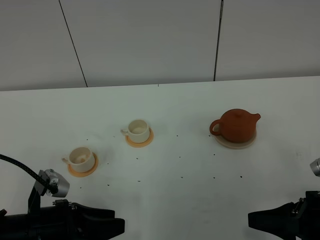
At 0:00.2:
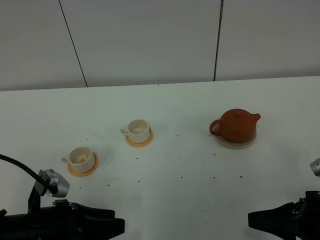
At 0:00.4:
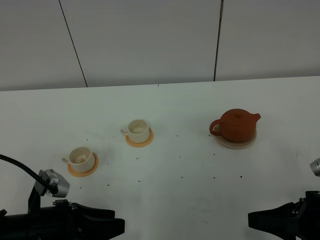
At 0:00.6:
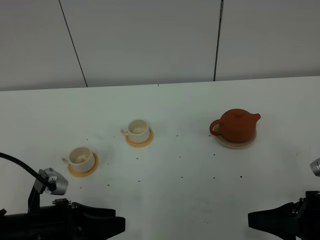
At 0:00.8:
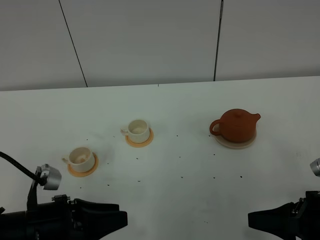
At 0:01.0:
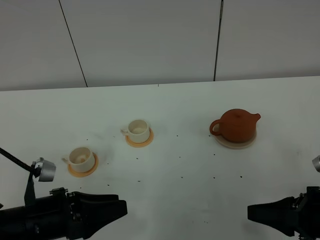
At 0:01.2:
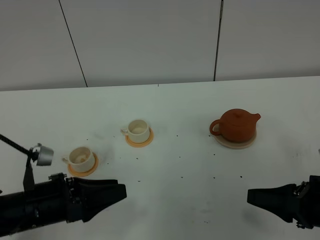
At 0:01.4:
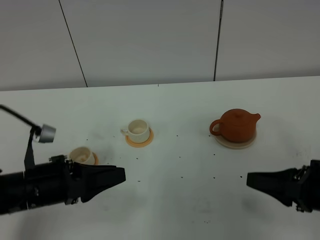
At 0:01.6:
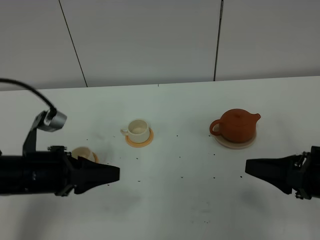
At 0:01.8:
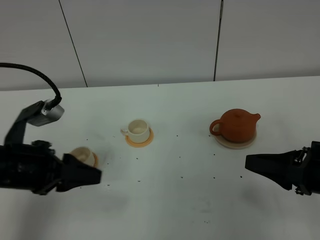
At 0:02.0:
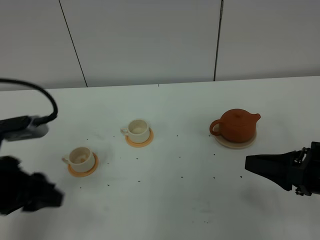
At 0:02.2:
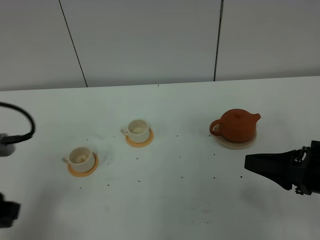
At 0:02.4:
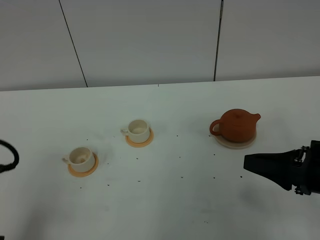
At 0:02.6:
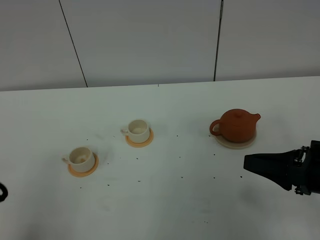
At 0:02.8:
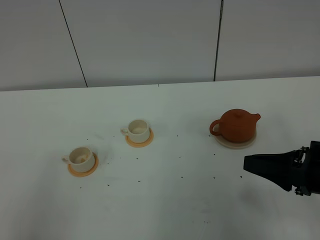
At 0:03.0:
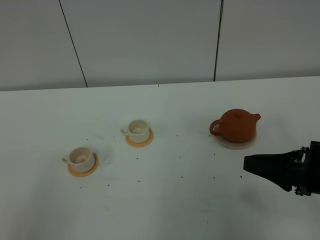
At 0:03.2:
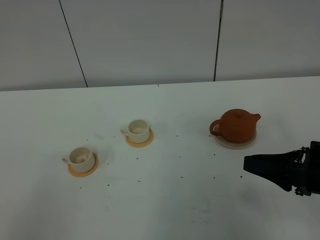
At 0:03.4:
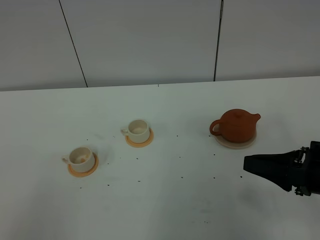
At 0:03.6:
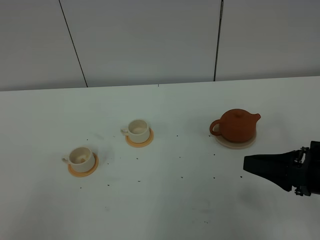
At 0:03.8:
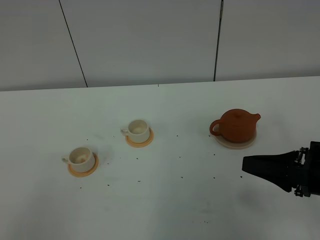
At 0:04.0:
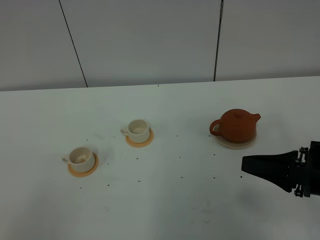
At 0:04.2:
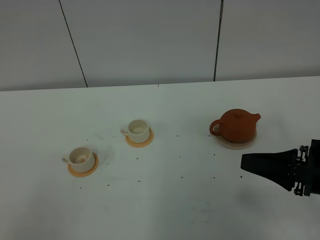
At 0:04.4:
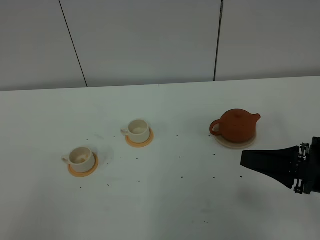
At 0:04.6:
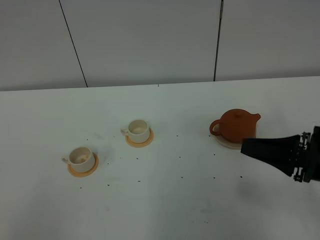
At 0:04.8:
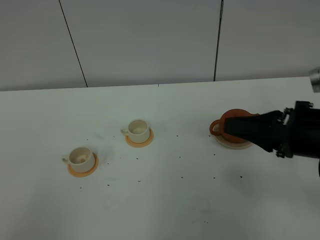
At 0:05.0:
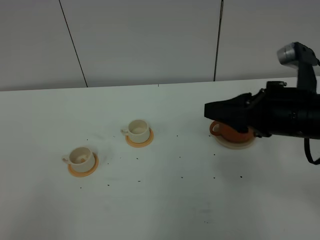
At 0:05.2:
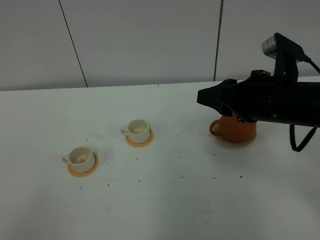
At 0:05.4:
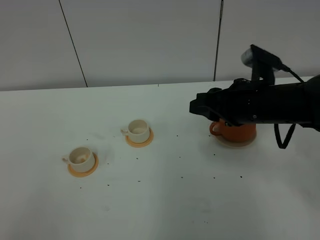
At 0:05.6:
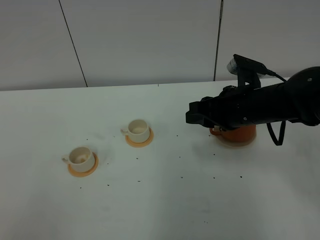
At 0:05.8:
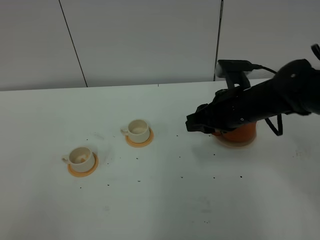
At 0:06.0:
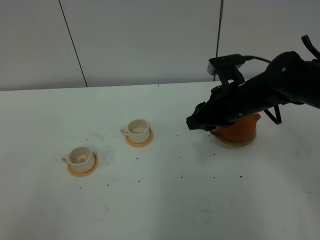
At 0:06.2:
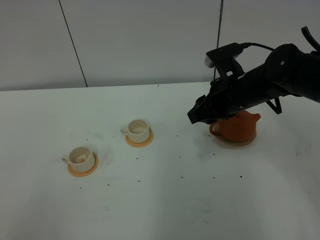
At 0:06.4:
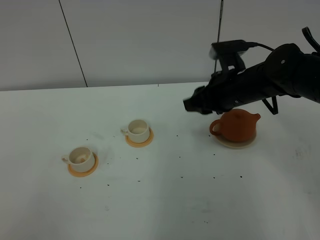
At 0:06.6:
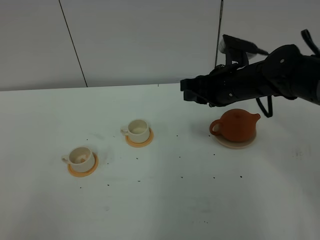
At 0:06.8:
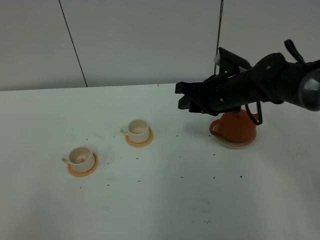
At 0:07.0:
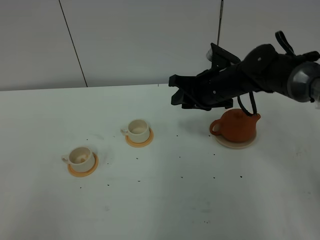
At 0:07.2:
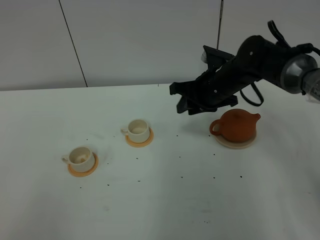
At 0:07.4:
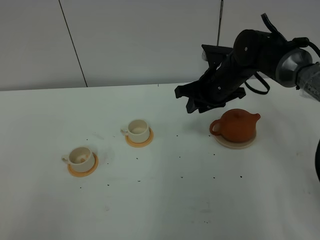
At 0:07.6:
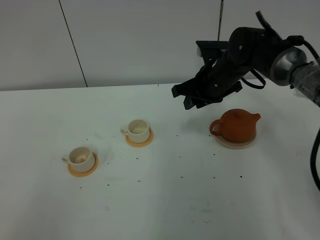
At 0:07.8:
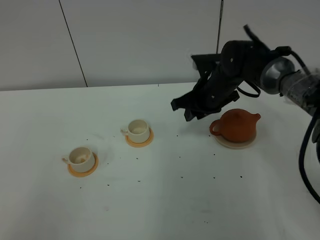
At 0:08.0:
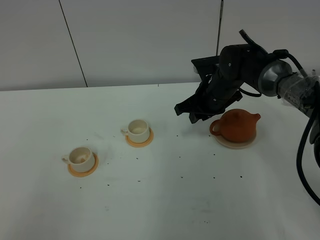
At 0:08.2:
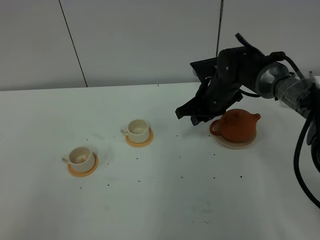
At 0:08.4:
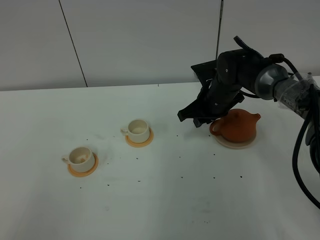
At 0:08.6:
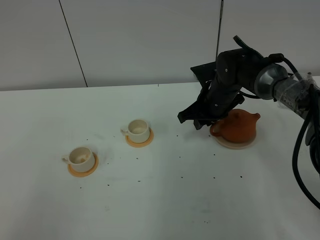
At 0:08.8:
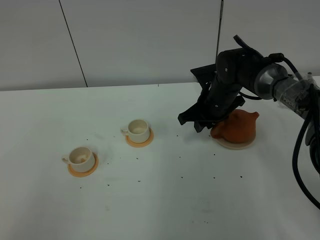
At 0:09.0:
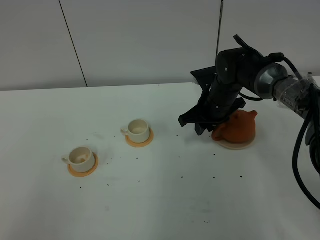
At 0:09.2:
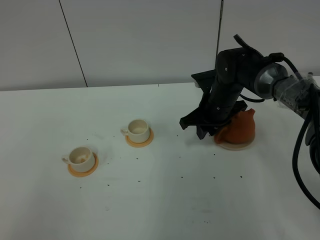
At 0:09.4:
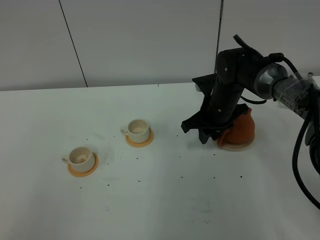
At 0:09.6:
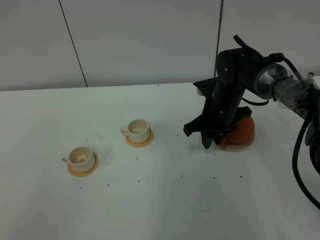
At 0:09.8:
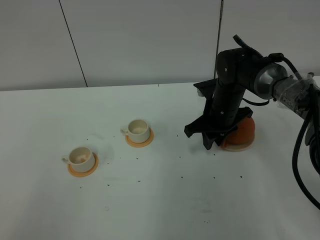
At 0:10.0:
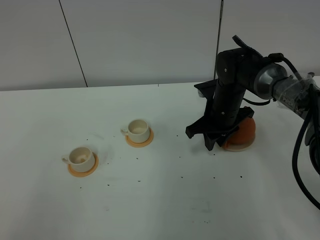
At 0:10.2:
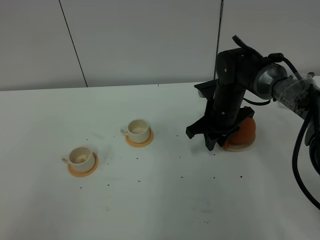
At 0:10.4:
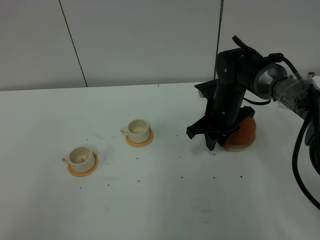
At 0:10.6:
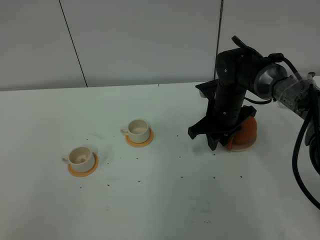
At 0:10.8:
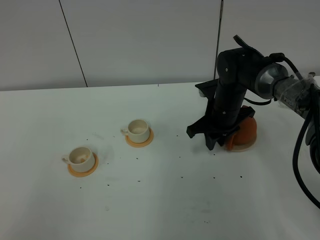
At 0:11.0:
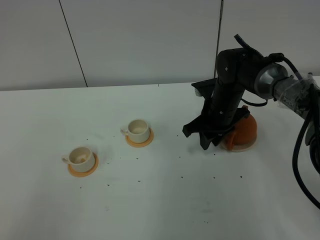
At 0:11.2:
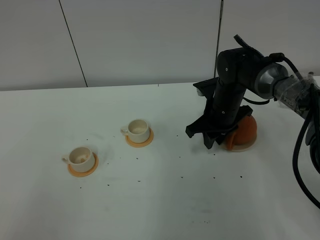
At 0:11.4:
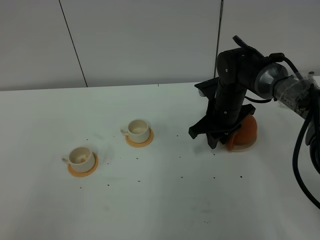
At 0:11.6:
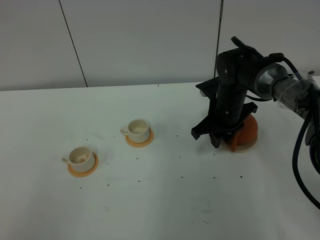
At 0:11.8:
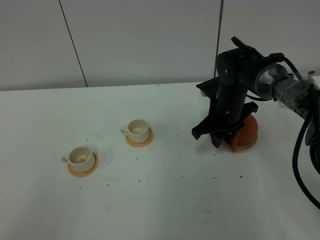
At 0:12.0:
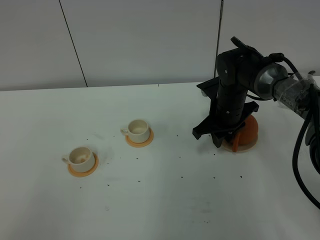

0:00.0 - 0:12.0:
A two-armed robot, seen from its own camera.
Task of the whole recording: grasp the brown teapot and pour the tea into the two white teacups one by one, put the brown teapot back in its original place.
0:00.0 - 0:01.6: The left gripper moves forward and upward, roughly 10 cm, while the right gripper changes place by roughly 5 cm.
0:01.6 - 0:03.0: The left gripper heads backward, covering approximately 20 cm.
0:03.0 - 0:04.4: The grippers stay close to where they were, moving slightly.
0:04.4 - 0:06.0: The right gripper travels forward and to the left by about 20 cm.
0:06.0 - 0:07.6: The right gripper shifts roughly 10 cm forward.
0:07.6 - 0:09.0: There are only small adjustments of the grippers.
0:09.0 - 0:12.0: The grippers move only a little.

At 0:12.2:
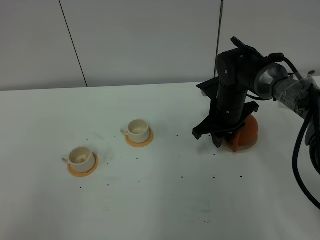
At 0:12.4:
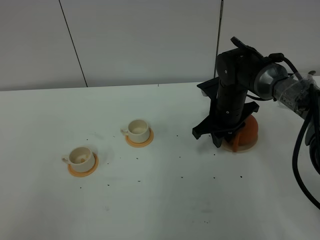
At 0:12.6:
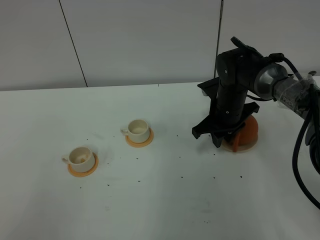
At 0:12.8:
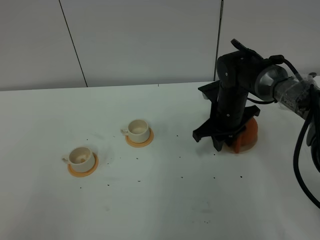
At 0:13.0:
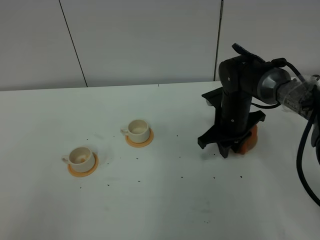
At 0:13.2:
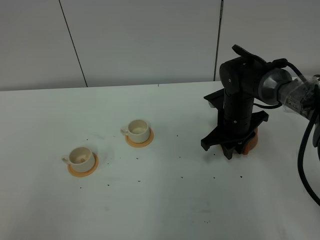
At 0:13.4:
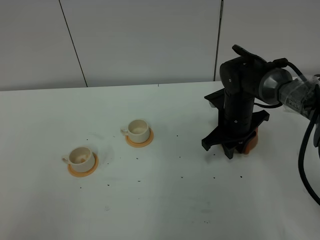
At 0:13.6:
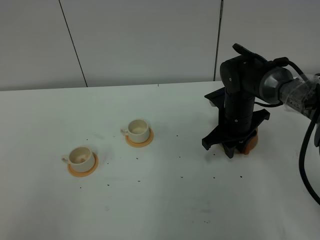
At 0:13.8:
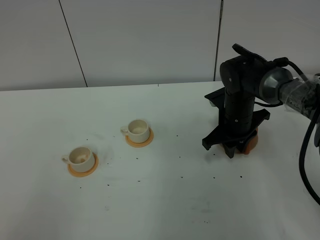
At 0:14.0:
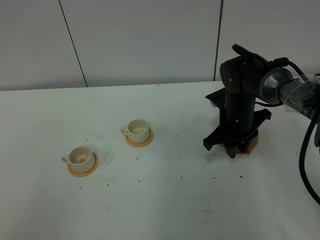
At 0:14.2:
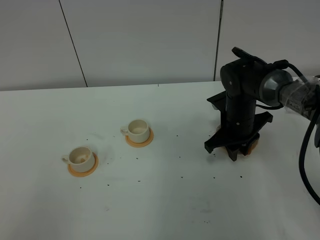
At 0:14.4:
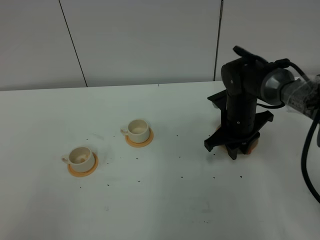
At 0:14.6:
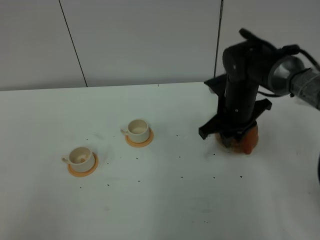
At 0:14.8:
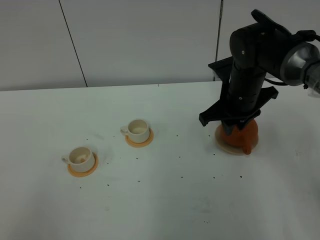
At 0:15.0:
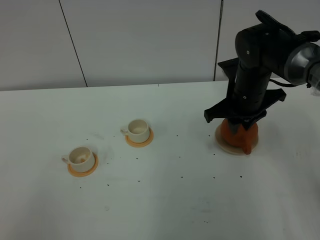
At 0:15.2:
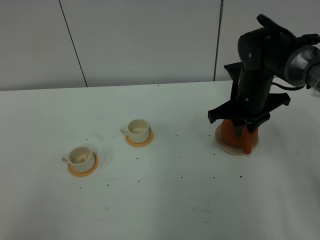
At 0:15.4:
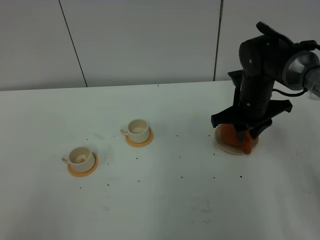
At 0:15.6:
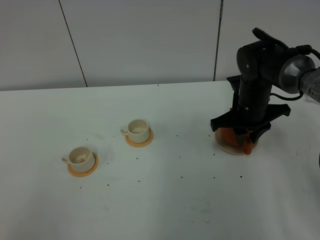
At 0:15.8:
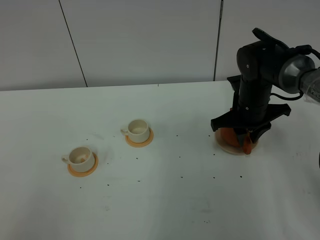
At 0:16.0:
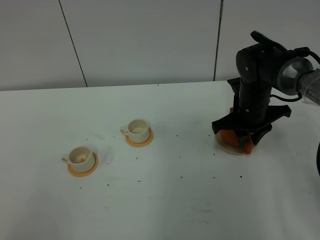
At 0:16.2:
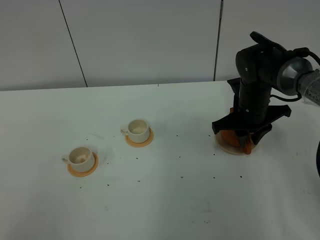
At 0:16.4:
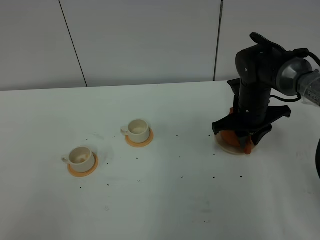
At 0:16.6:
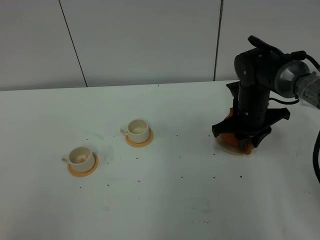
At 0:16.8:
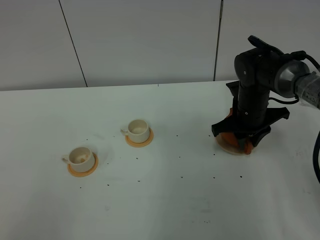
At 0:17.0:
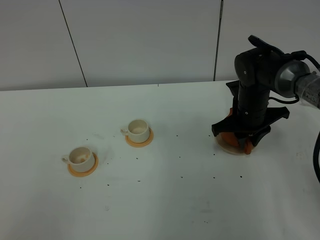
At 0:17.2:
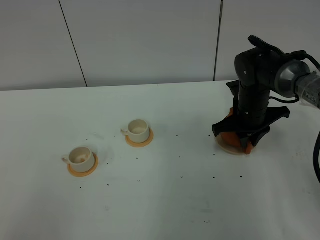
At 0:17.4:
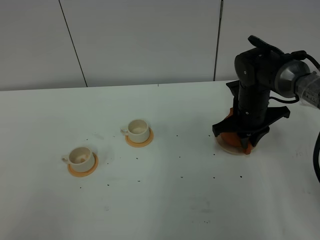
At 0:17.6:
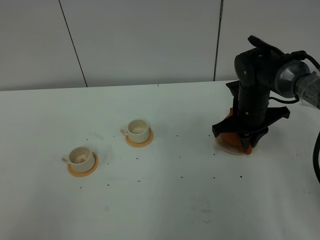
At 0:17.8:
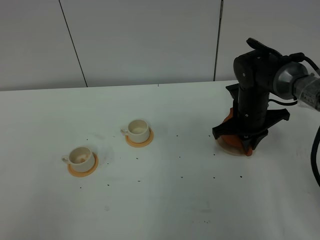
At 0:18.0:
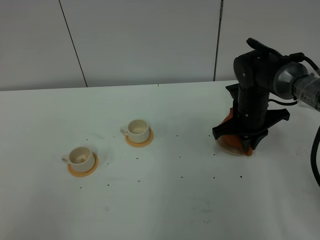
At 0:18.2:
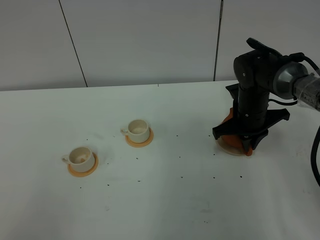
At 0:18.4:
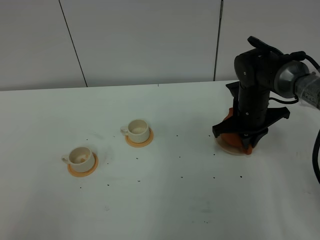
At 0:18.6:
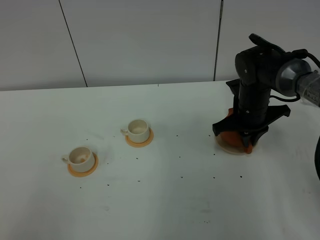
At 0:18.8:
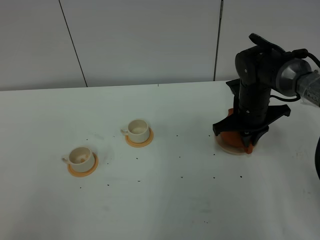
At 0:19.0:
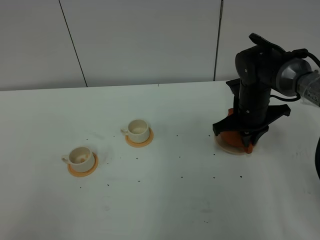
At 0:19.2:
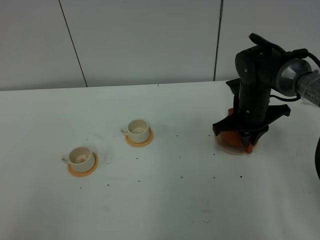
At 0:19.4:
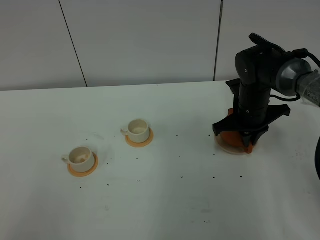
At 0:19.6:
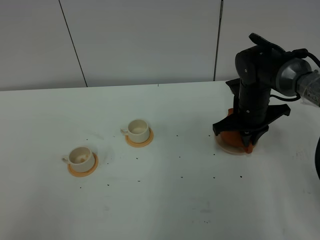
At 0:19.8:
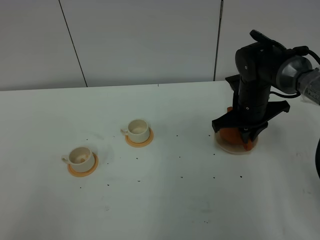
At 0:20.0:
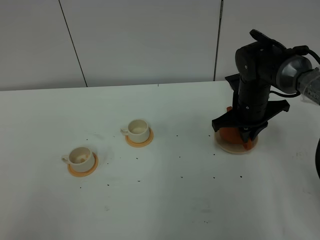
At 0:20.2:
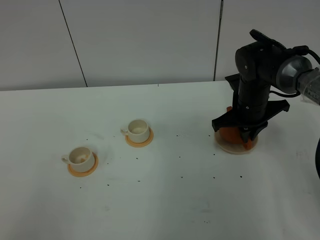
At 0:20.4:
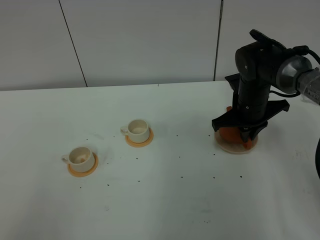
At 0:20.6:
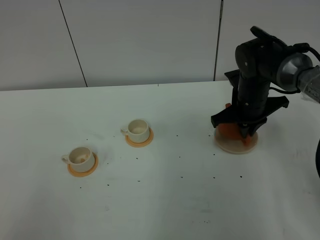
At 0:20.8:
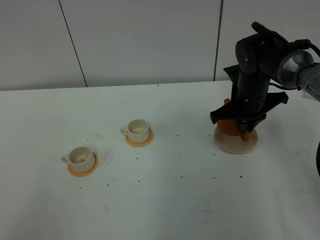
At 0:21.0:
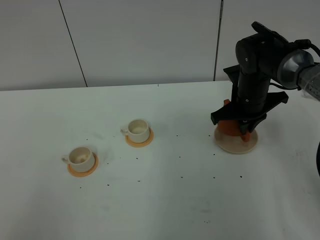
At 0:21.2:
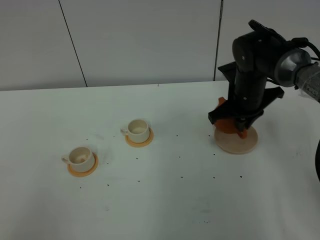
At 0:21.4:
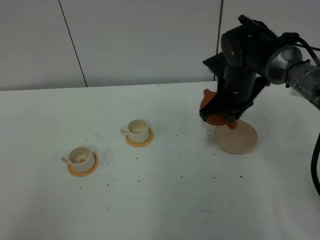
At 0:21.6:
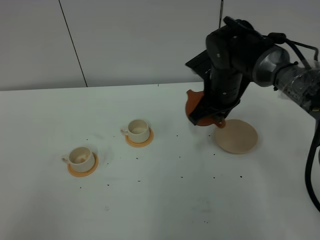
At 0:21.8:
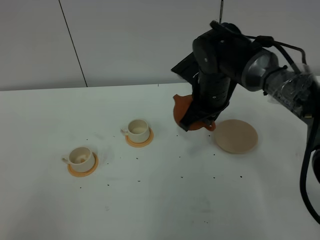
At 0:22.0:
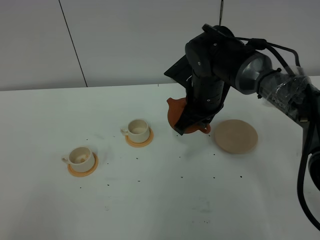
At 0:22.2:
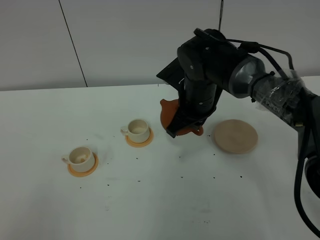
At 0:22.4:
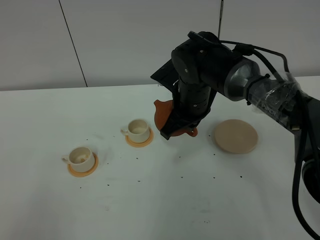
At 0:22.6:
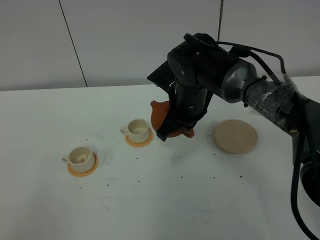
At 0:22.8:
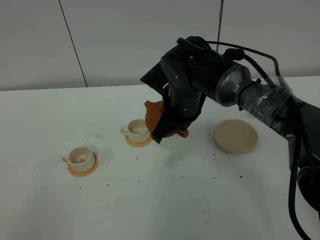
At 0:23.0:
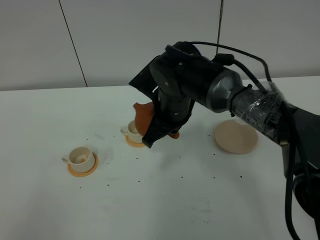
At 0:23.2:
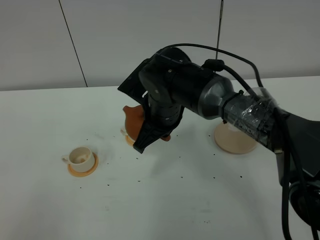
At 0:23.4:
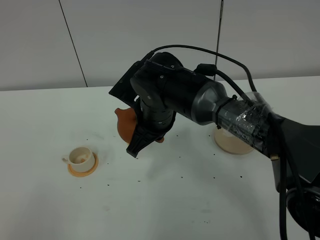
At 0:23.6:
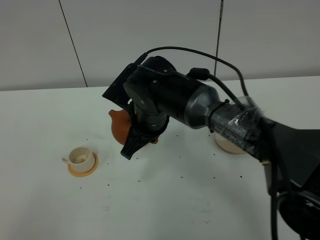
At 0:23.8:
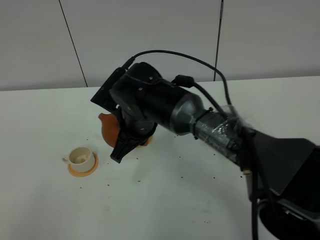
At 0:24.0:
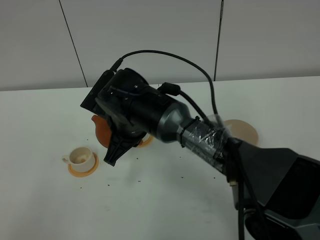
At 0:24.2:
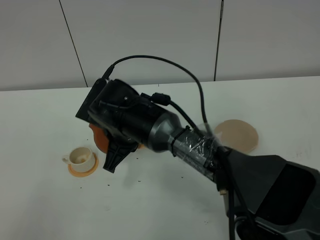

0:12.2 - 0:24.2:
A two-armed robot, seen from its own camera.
Task of the whole recording: grasp the brown teapot and pour the tea into the two white teacups one by one, put the brown teapot back in its original place.
Step, 0:12.2 - 0:21.0: Pick up the teapot with the right gripper.
0:12.2 - 0:13.8: The grippers move only a little.
0:13.8 - 0:15.2: The right gripper is displaced upward by some 5 cm.
0:15.2 - 0:16.6: The grippers stay close to where they were, moving slightly.
0:16.6 - 0:18.2: The right gripper closes up.
0:18.2 - 0:21.2: The grippers move only a little.
0:21.2 - 0:22.6: The right gripper heads to the left, covering roughly 10 cm.
0:22.6 - 0:24.2: The right gripper is displaced to the left and backward by some 15 cm.
